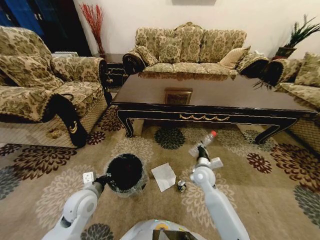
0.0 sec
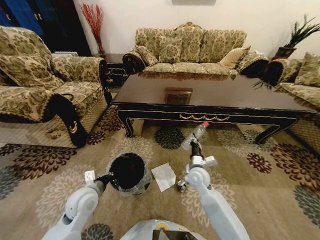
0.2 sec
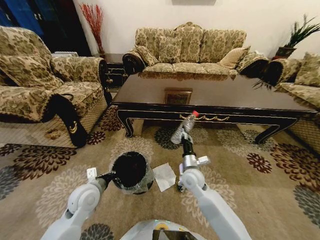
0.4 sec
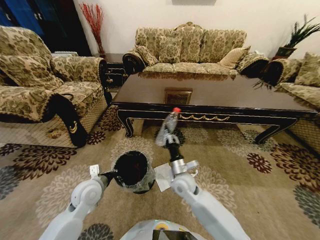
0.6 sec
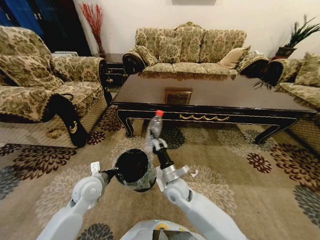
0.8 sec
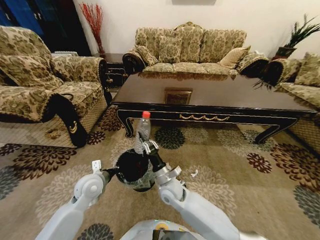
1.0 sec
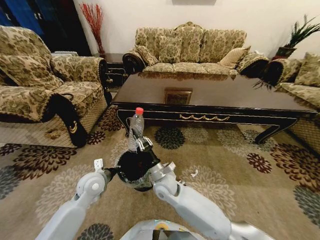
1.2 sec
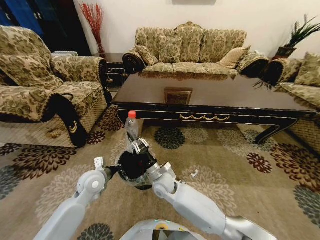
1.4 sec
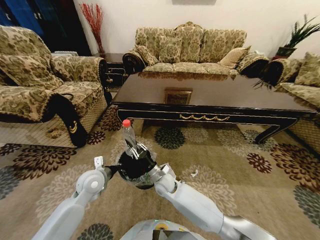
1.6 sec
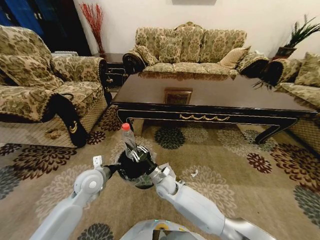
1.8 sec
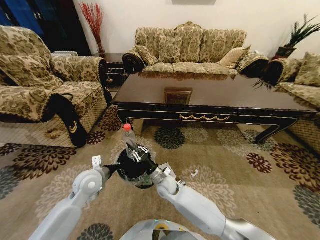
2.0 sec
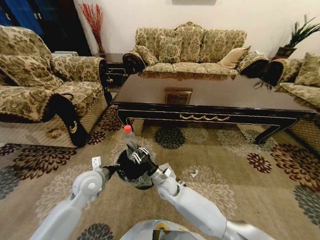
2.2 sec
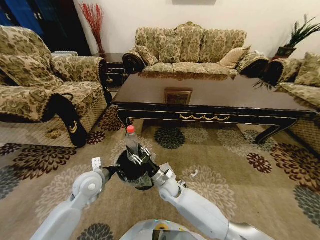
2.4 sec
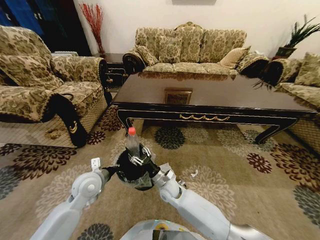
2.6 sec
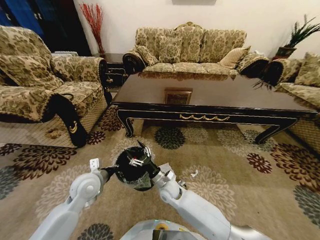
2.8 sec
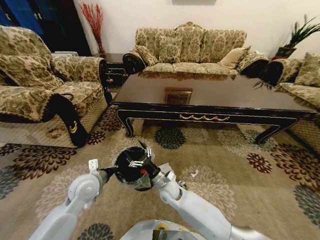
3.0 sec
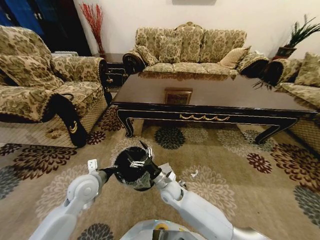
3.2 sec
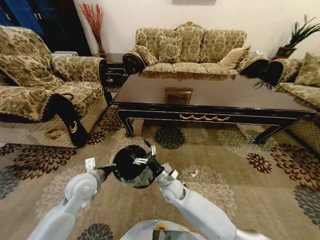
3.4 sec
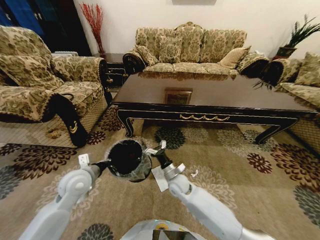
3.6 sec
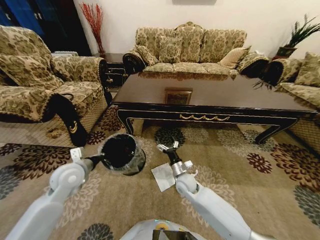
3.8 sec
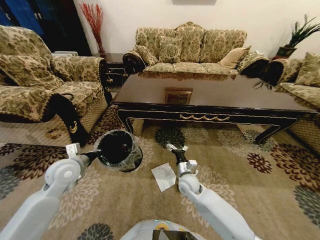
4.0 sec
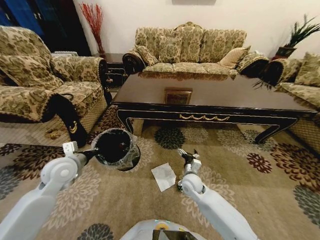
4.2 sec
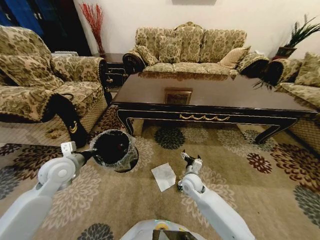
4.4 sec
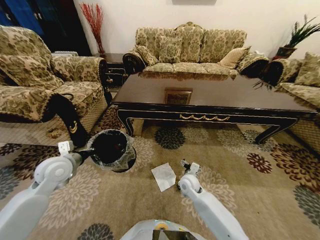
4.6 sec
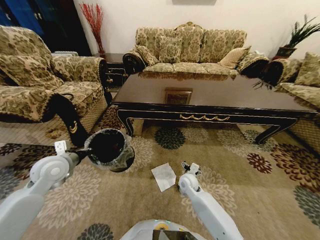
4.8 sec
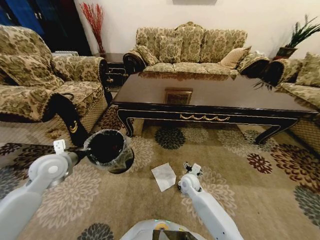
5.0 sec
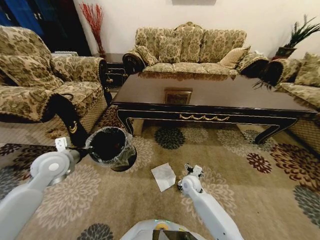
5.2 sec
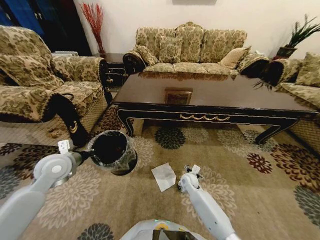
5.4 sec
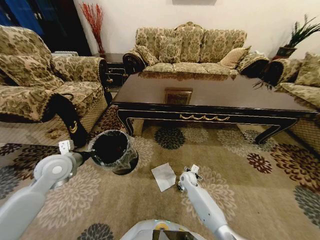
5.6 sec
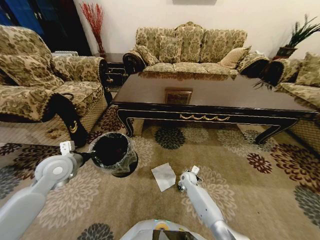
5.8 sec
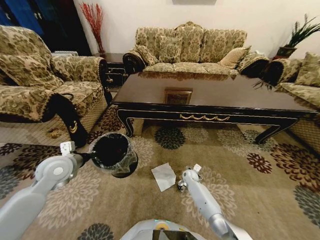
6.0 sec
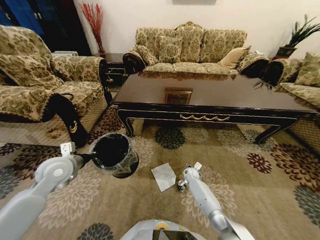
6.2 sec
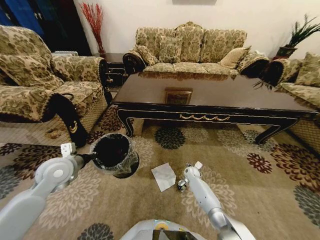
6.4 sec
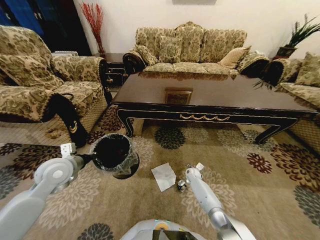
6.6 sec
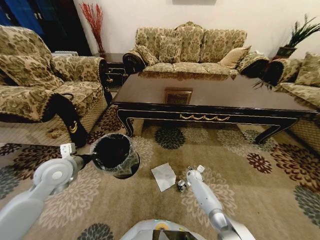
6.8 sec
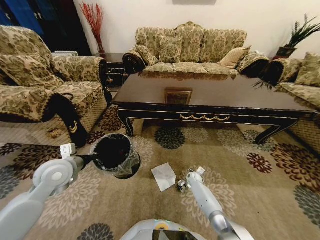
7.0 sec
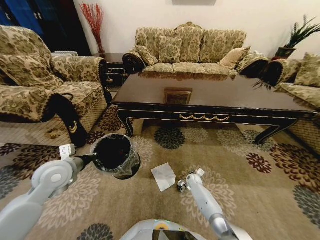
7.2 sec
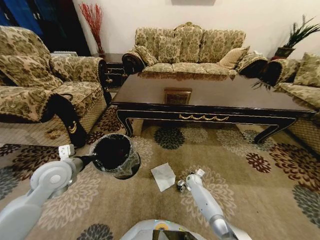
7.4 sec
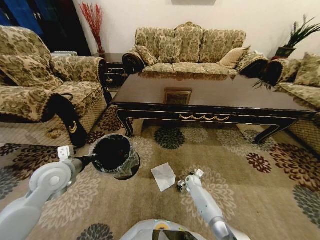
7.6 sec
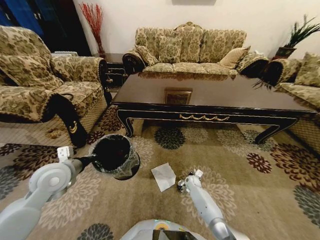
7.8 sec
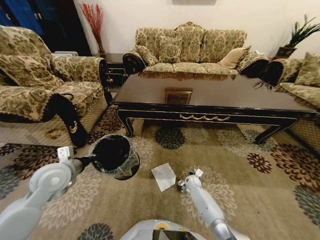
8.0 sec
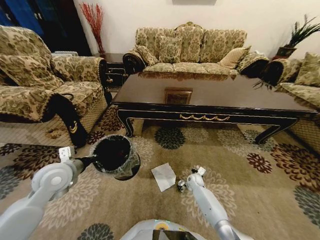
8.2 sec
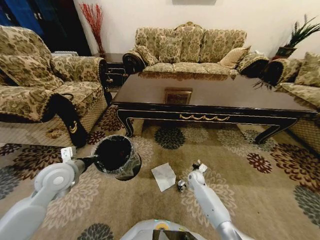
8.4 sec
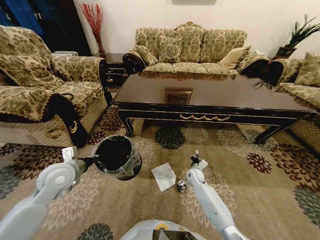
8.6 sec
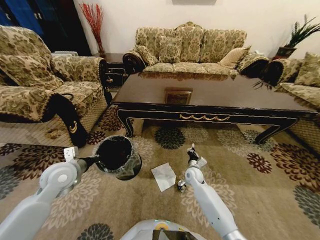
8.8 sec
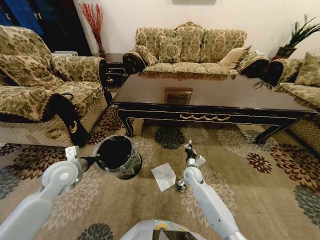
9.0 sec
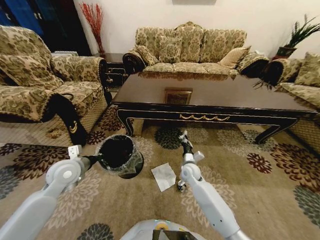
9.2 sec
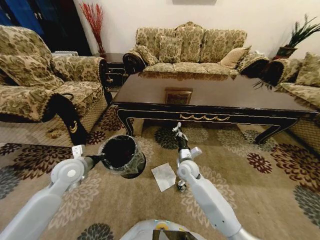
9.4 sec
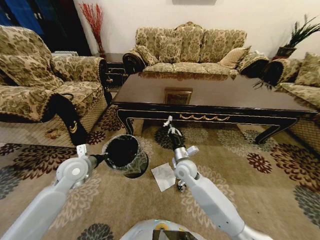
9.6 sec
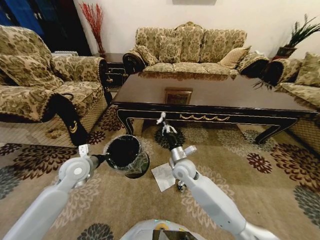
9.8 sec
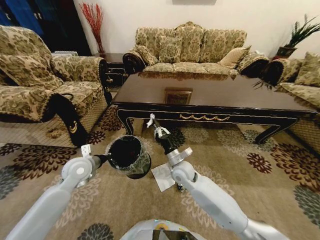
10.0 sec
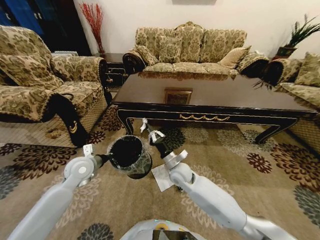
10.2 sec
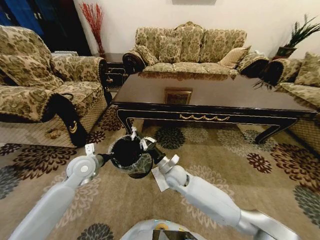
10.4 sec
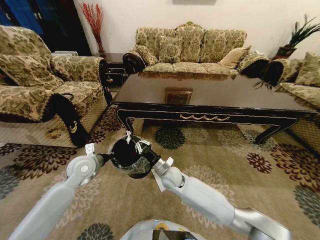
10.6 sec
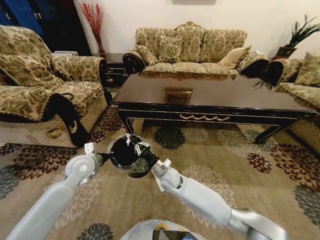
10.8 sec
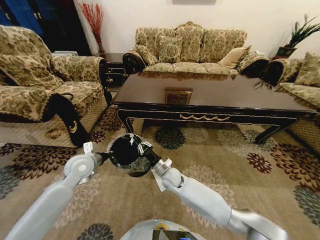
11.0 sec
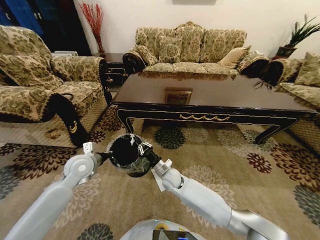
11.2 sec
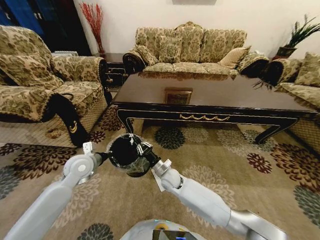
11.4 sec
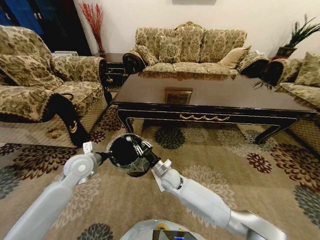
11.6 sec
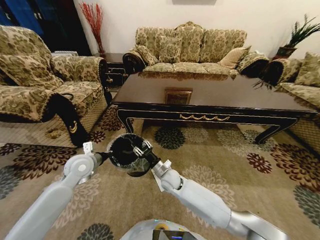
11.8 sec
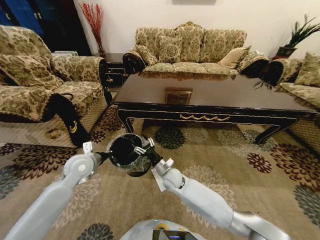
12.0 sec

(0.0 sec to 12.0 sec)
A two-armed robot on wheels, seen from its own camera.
Task of the whole recording: Move to the front of the table and pick up the trash from the floor, then place it into the trash bin.
0.0 sec - 1.6 sec: The left gripper moves forward, some 5 cm. Meanwhile the right gripper shifts roughly 20 cm to the left.
1.6 sec - 3.0 sec: The right gripper opens its fingers.
3.0 sec - 4.4 sec: The left gripper shifts some 10 cm to the left and upward, while the right gripper goes some 10 cm to the right.
4.4 sec - 6.0 sec: The right gripper travels downward and forward by some 15 cm.
6.0 sec - 7.6 sec: The right gripper closes.
7.6 sec - 9.0 sec: The right gripper moves upward, some 15 cm, and closes its fingers.
9.0 sec - 10.4 sec: The left gripper changes place by some 5 cm, while the right gripper travels to the left, upward and backward by approximately 15 cm.
10.4 sec - 12.0 sec: The right gripper opens up.

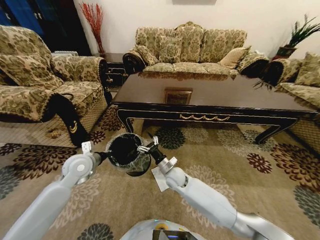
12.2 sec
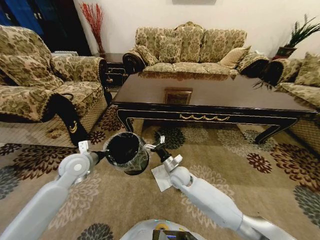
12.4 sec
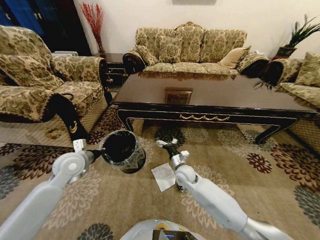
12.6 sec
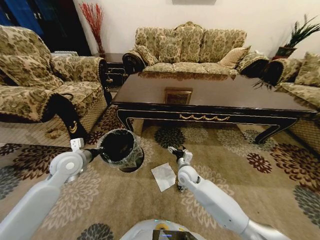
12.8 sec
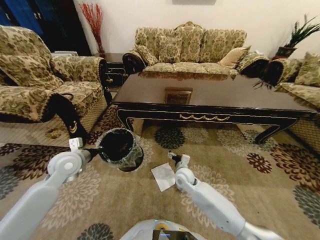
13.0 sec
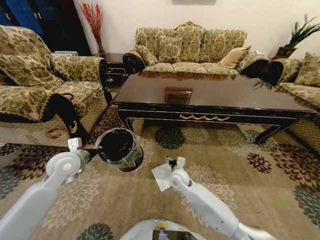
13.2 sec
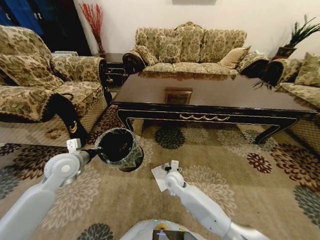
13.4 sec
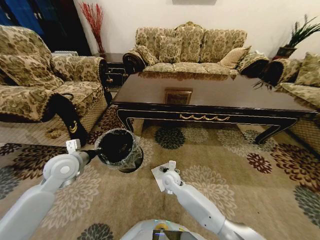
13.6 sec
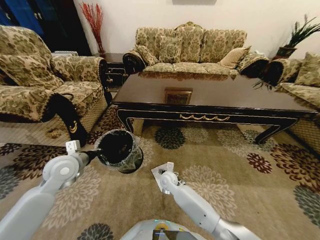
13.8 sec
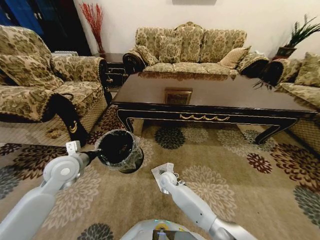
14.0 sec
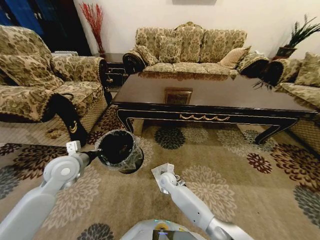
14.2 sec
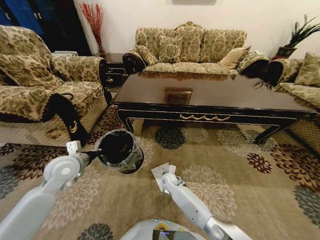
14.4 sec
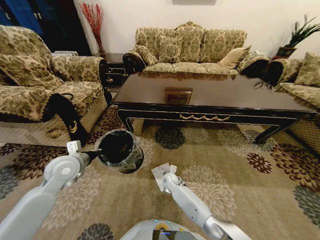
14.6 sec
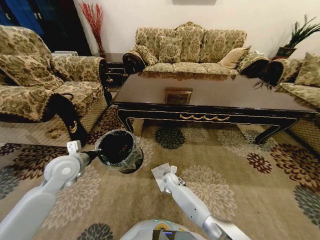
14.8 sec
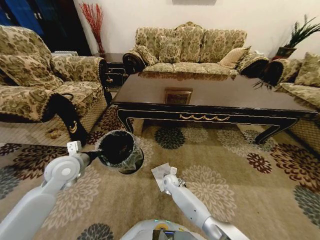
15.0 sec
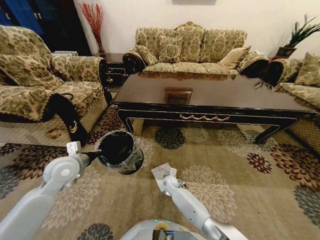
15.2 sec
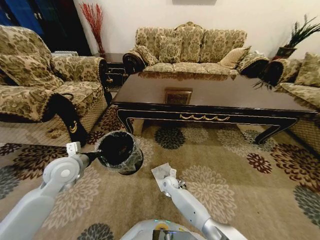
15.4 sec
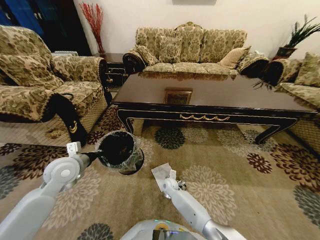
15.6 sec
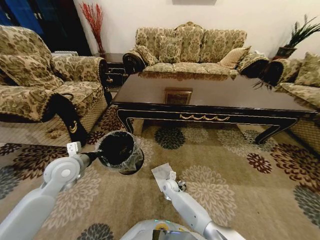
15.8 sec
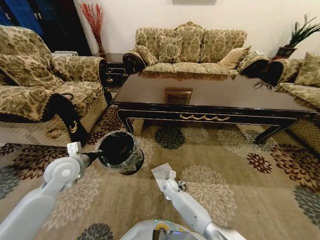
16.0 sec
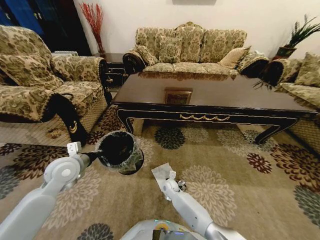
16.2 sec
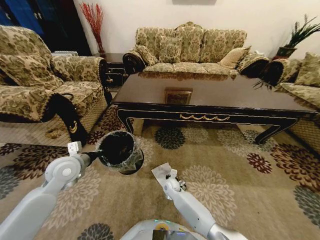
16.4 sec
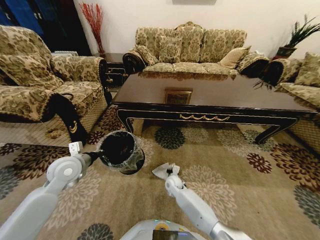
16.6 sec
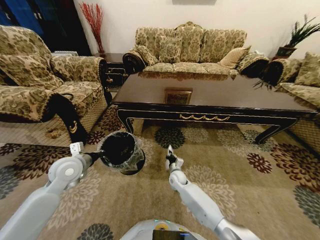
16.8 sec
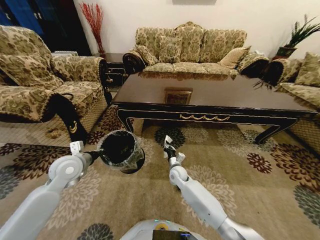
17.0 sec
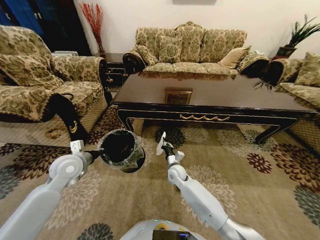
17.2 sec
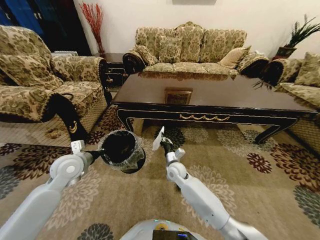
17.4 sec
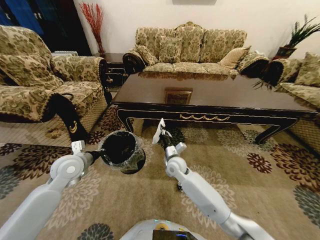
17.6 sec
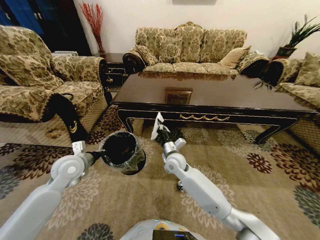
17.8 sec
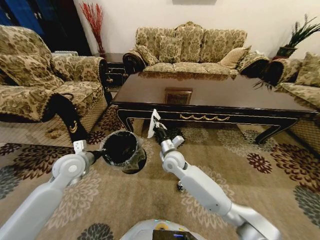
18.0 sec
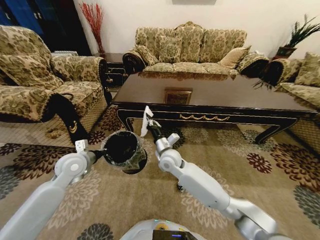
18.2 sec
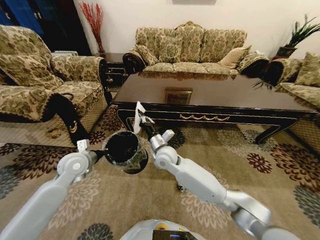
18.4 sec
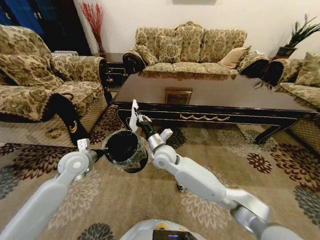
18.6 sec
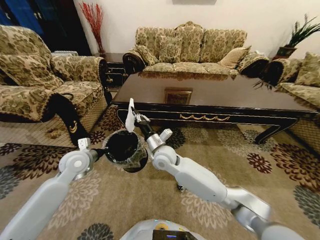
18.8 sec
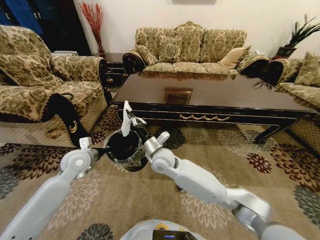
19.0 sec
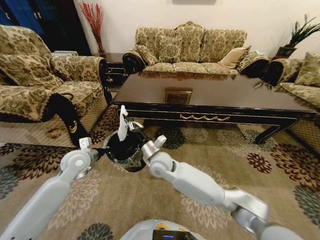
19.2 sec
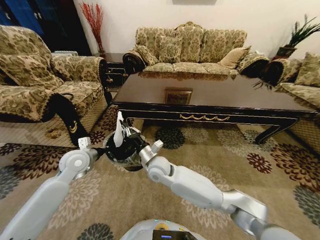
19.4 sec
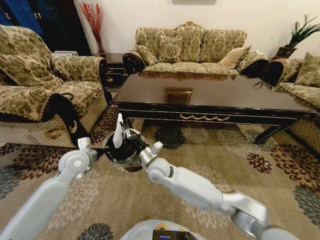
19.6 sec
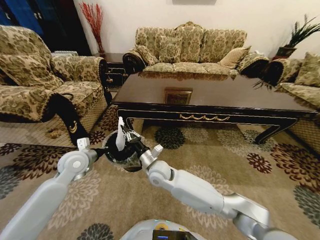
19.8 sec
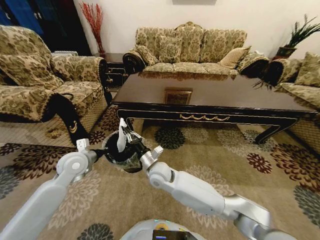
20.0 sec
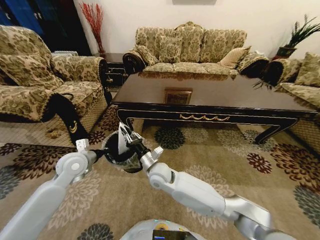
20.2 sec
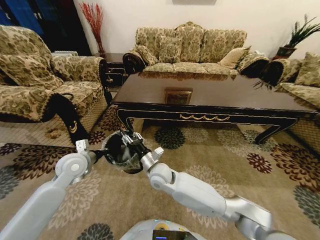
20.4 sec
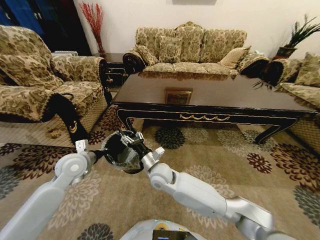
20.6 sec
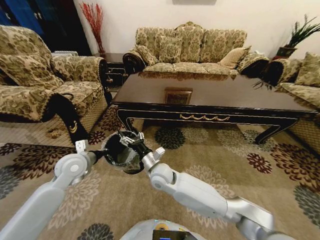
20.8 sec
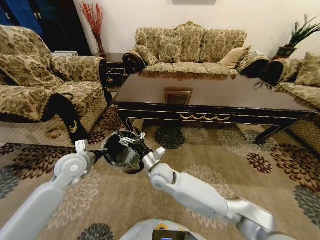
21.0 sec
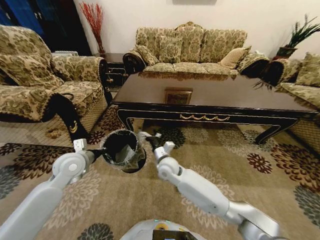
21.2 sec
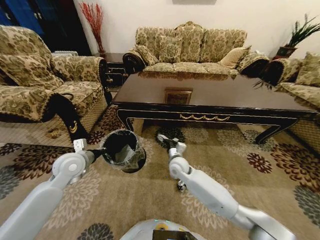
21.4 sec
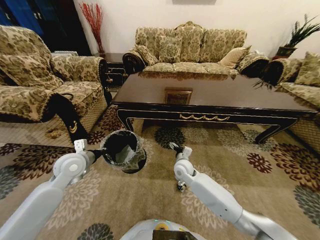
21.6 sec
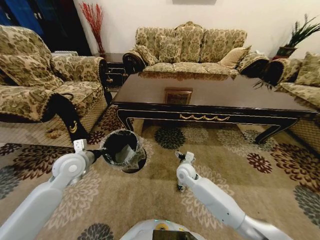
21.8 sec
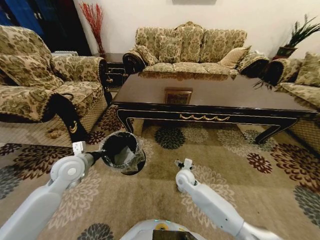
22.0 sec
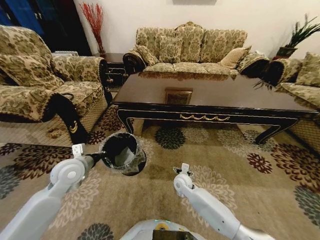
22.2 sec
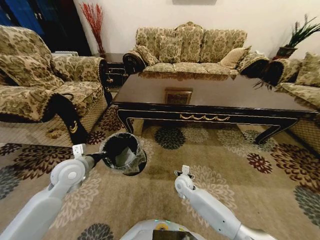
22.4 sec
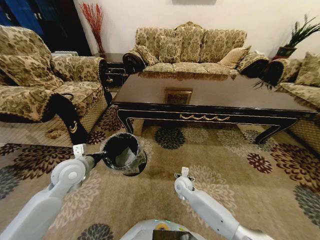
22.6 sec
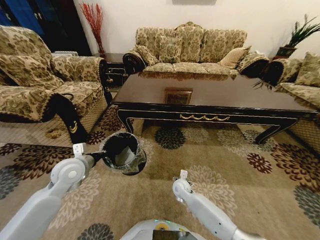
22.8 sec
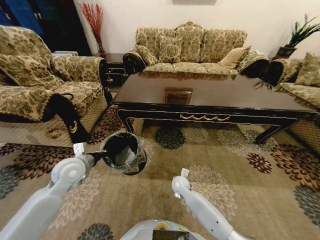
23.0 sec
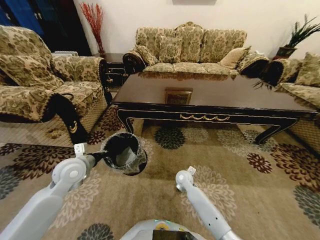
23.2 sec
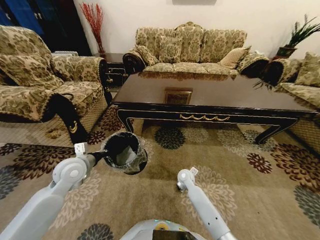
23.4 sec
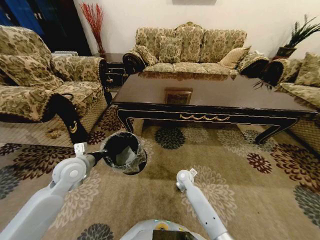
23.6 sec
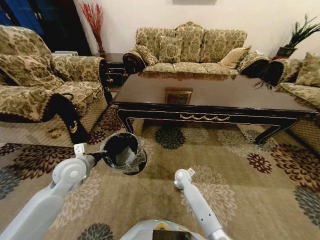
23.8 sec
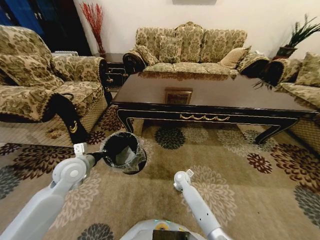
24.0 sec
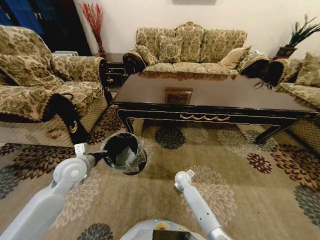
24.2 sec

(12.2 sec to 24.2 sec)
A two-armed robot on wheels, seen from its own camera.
Task of the whole recording: Move to the front of the table and pick up the trash from the floor, then place it into the trash bin.
12.2 sec - 13.8 sec: The right gripper travels downward by some 5 cm, and moves about 5 cm to the right and comes back.
13.8 sec - 15.2 sec: The right gripper is displaced downward by approximately 10 cm.
15.2 sec - 16.6 sec: The right gripper closes.
16.6 sec - 18.2 sec: The right gripper shifts roughly 25 cm upward.
18.2 sec - 19.8 sec: The right gripper travels backward by some 5 cm.
19.8 sec - 21.2 sec: The right gripper changes place by roughly 5 cm, and opens up.
21.2 sec - 22.6 sec: The right gripper travels downward and to the right by about 20 cm.
22.6 sec - 24.2 sec: The right gripper changes place by approximately 5 cm.
